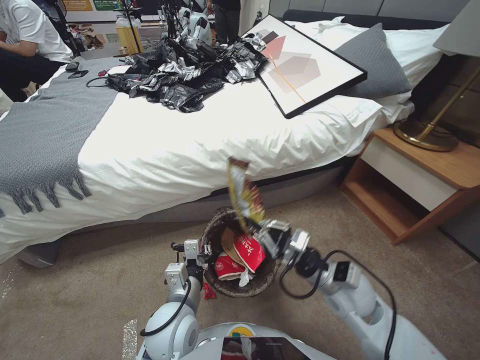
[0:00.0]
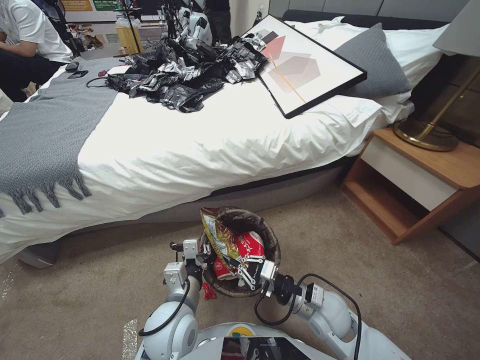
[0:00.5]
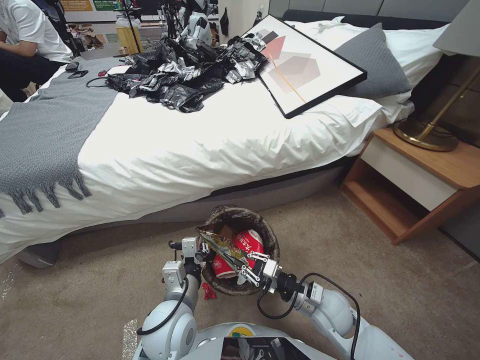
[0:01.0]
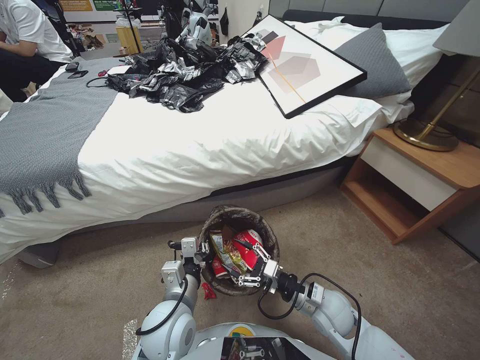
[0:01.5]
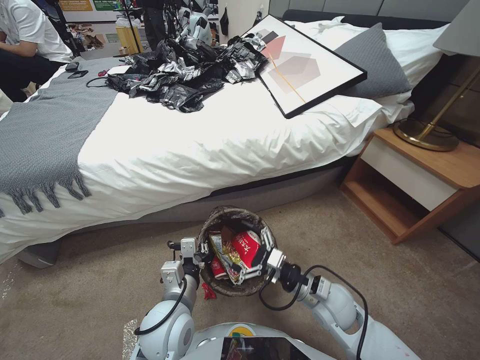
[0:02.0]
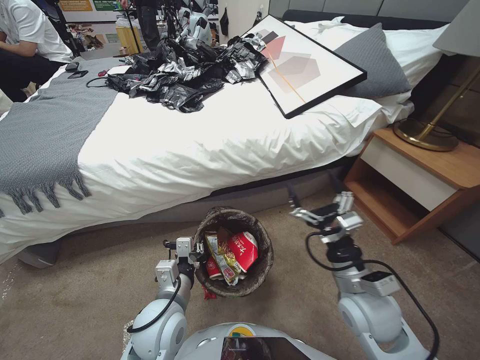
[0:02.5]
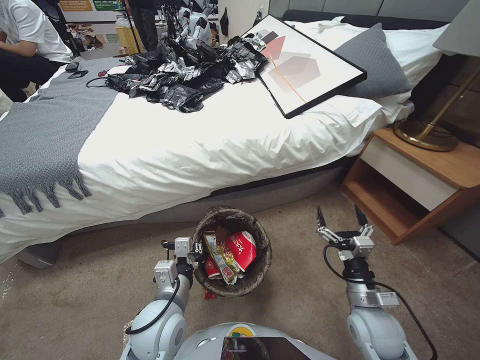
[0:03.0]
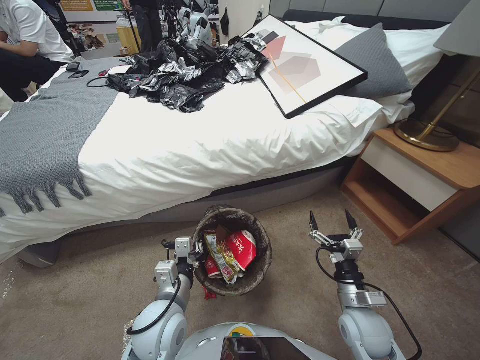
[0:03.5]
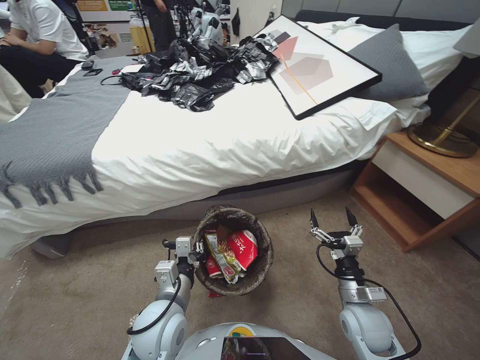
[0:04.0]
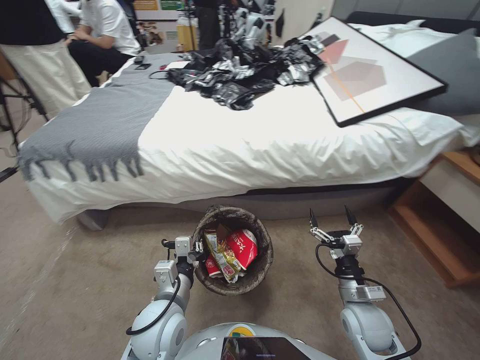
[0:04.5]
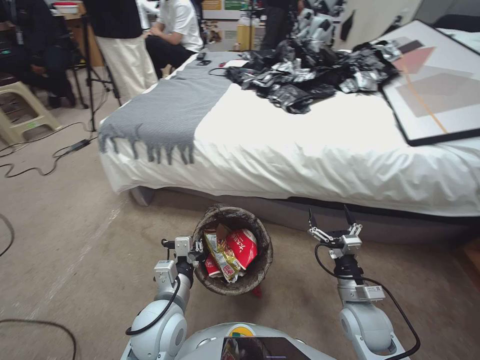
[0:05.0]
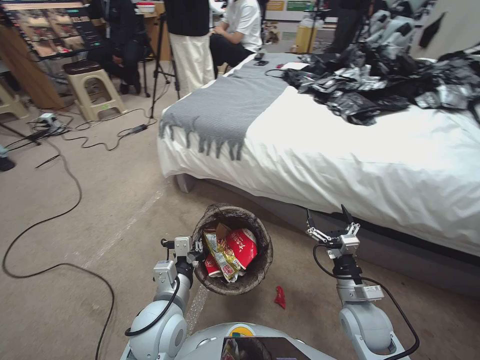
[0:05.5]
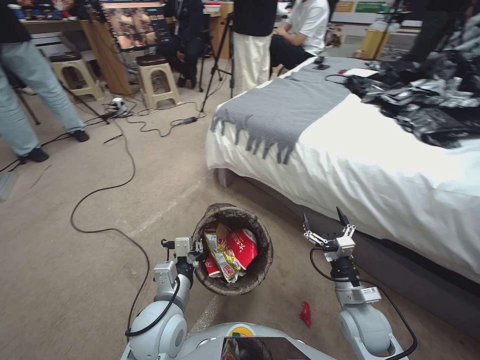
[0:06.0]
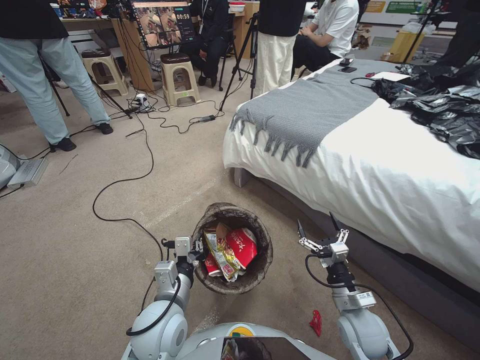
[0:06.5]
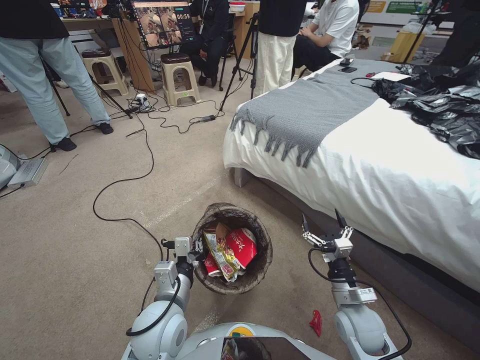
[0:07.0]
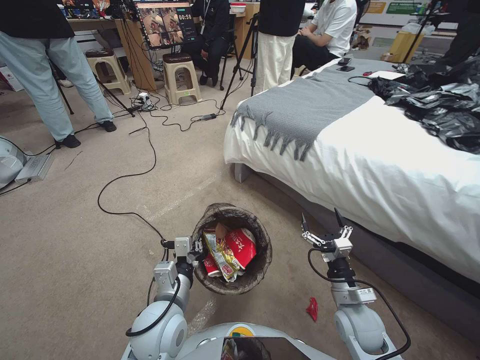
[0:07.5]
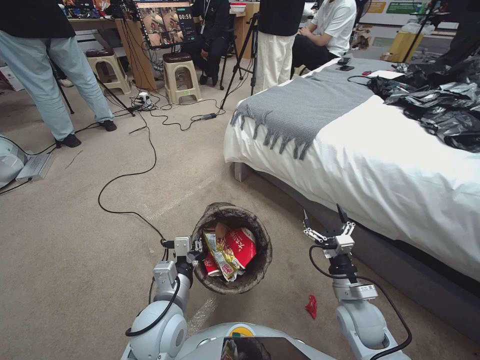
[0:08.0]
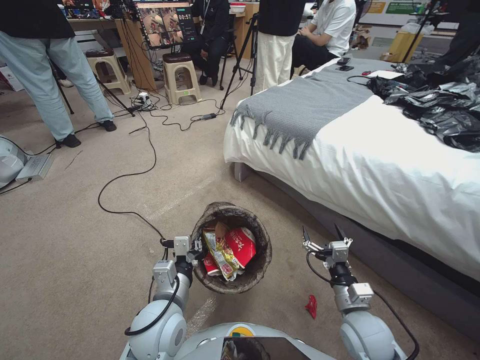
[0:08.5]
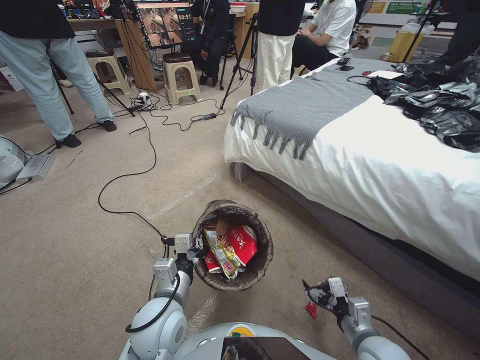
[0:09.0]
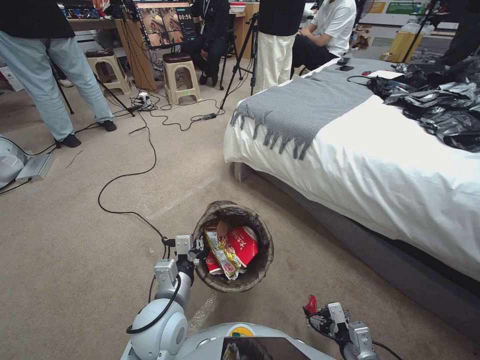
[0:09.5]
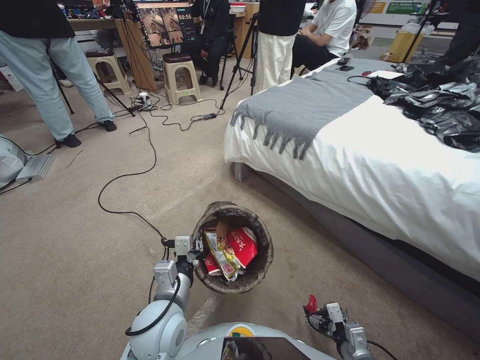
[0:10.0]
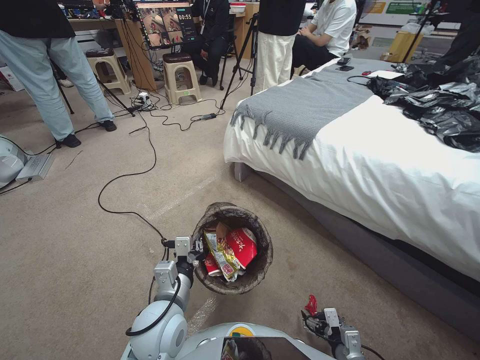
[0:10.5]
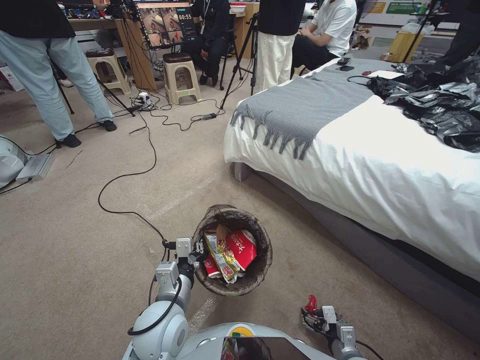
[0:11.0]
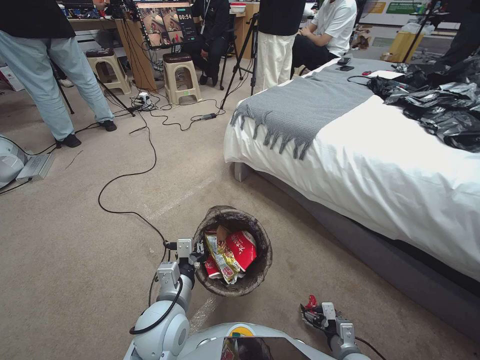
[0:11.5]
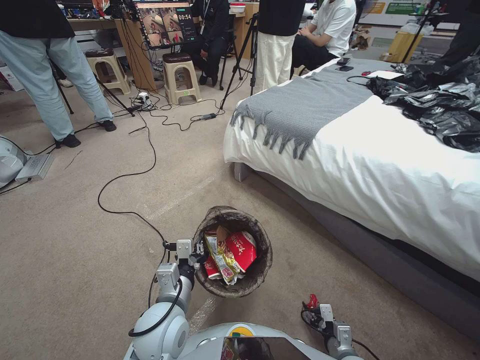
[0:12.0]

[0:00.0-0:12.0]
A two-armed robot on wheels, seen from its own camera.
Task of the whole recording: Pick up the trash bin, then pick up the garbage from the floor and place it into the trash bin.
0:00.0 to 0:02.0: The right gripper shifts roughly 15 cm to the left, downward and backward, and opens its fingers.
0:02.0 to 0:04.0: The right gripper is displaced to the right by some 5 cm, and reaches about 10 cm upward, then returns.
0:08.0 to 0:10.0: The right gripper shifts some 15 cm backward and downward.
0:10.0 to 0:12.0: The right gripper shifts approximately 10 cm downward, and closes its fingers.

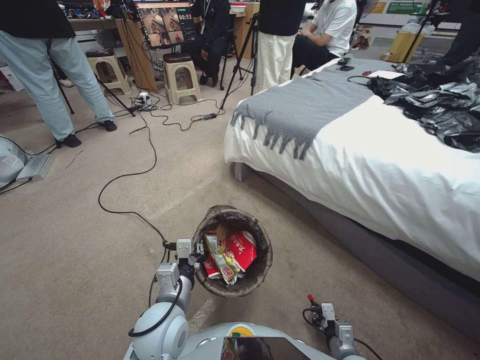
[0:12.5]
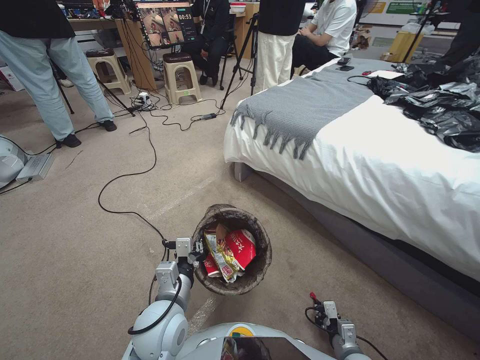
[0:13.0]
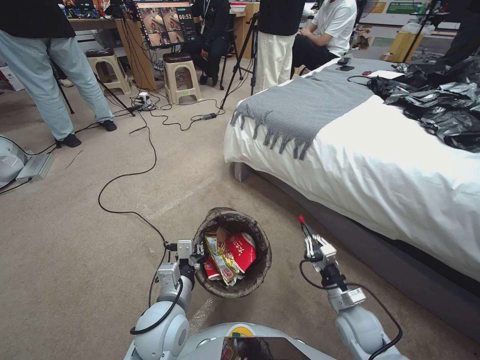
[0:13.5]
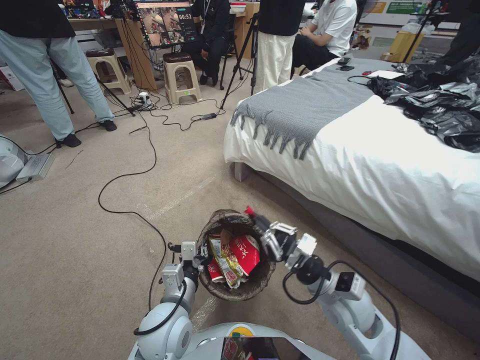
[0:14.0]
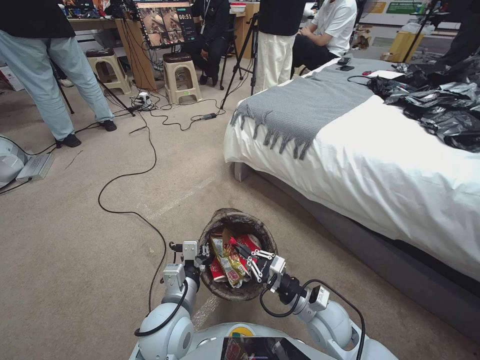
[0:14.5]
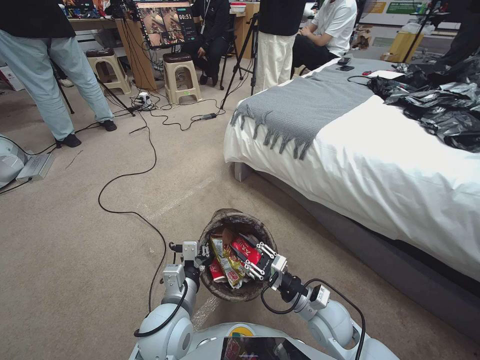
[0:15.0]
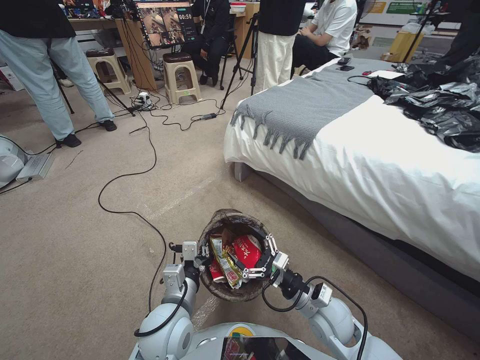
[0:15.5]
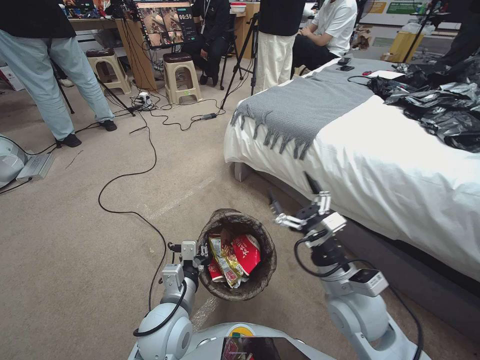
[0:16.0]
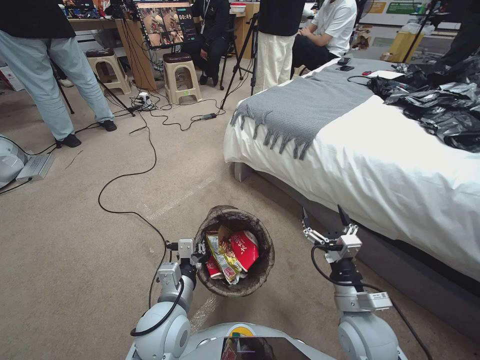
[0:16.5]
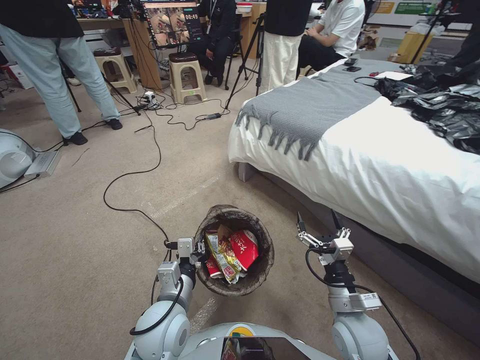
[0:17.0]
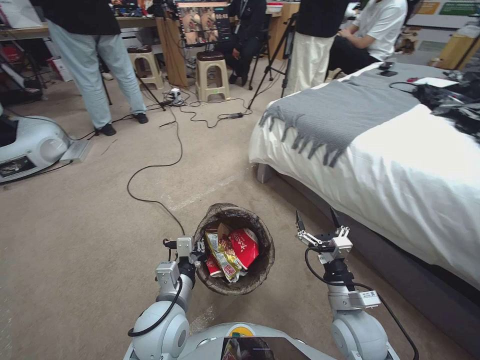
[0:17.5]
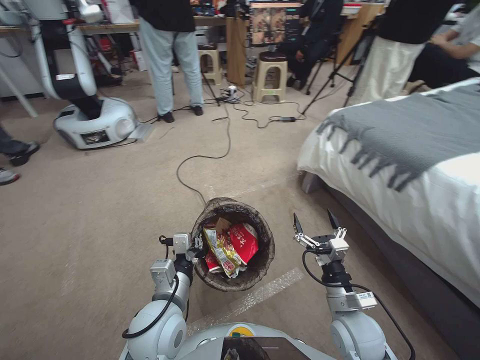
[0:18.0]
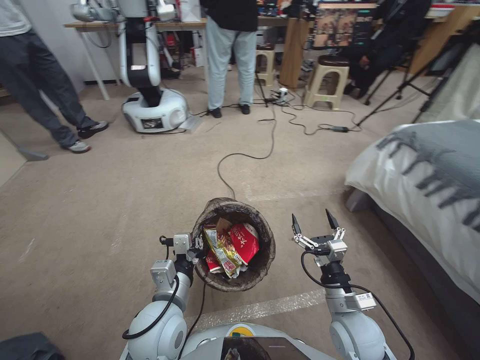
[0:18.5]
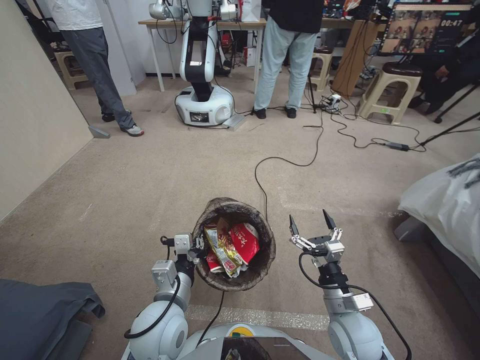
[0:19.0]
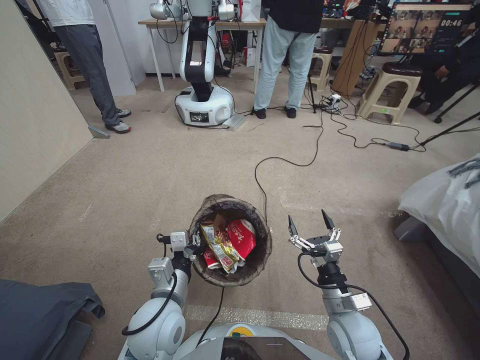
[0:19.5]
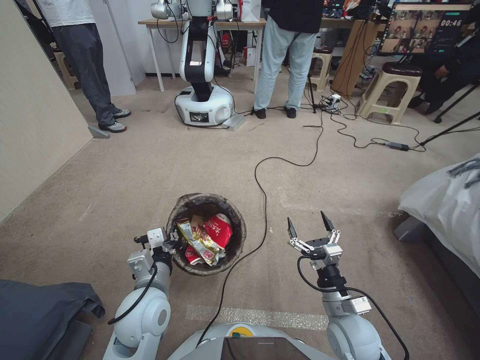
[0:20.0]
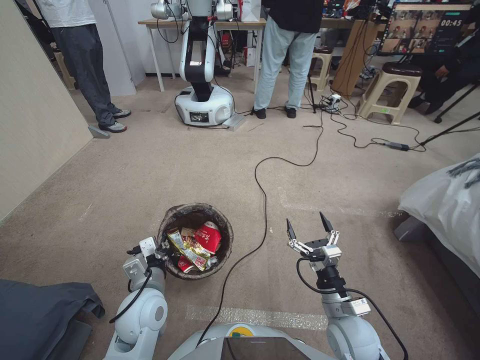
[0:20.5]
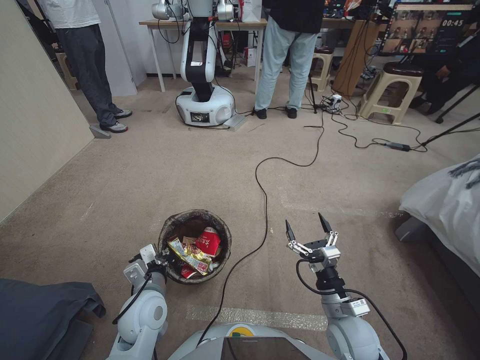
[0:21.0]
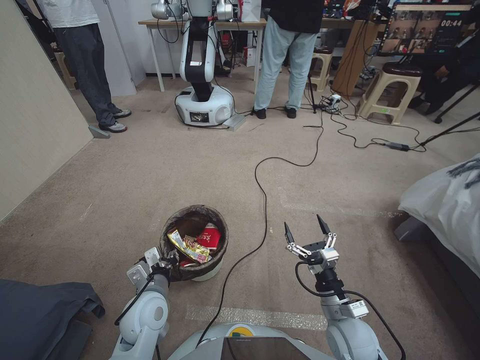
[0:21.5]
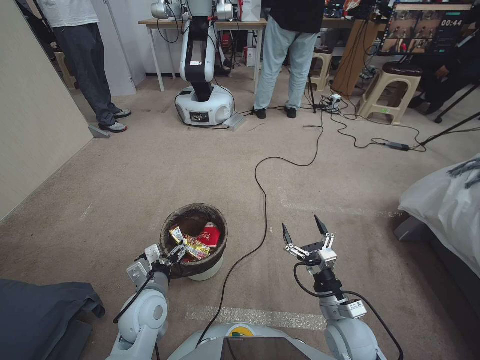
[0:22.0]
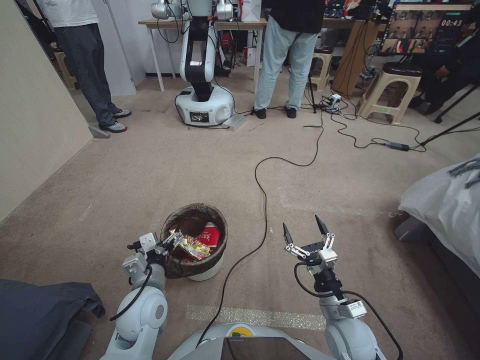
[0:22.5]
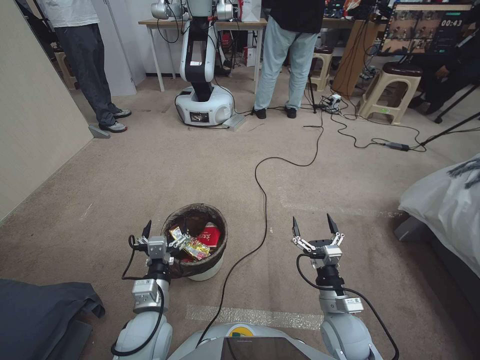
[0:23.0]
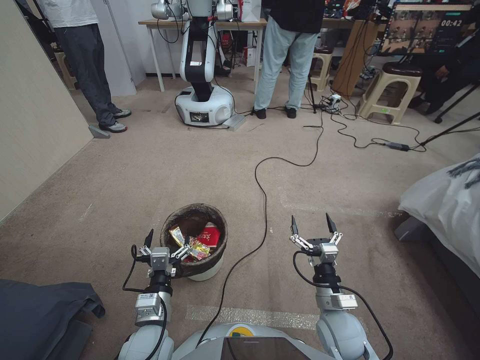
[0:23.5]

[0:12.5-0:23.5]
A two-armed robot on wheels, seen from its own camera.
Task of the whole recording: Pick up the trash bin, then pick up the garbage from the floor and place it into the trash bin.
0:12.5 to 0:14.5: The right gripper is displaced upward, to the left and forward by some 20 cm.
0:14.5 to 0:16.0: The right gripper shifts approximately 10 cm upward, and opens up.
0:16.0 to 0:18.0: The right gripper travels downward by roughly 10 cm.
0:20.0 to 0:21.5: The left gripper travels downward by some 5 cm.
0:21.5 to 0:23.5: The left gripper moves backward, roughly 5 cm, and opens.
